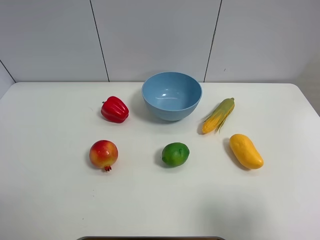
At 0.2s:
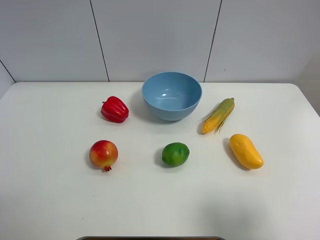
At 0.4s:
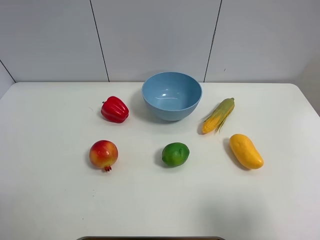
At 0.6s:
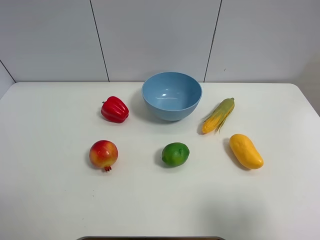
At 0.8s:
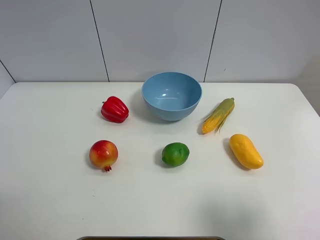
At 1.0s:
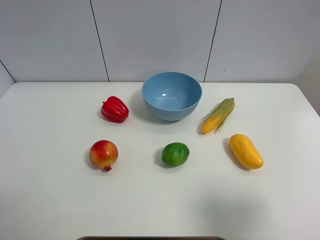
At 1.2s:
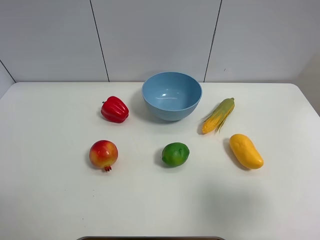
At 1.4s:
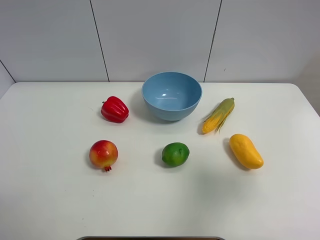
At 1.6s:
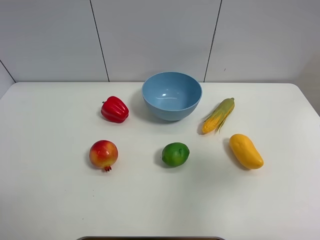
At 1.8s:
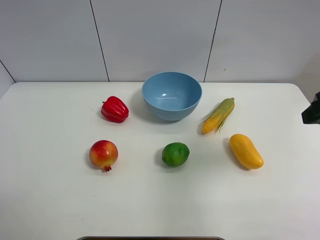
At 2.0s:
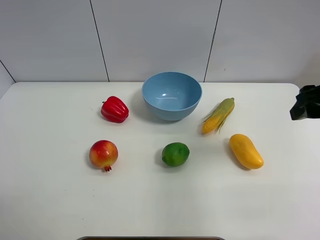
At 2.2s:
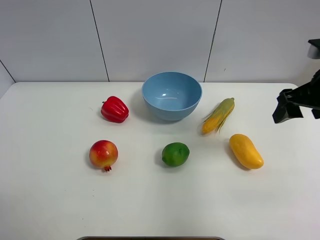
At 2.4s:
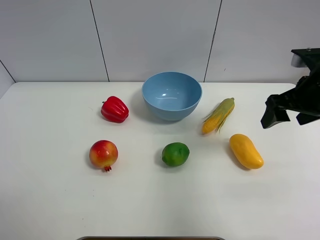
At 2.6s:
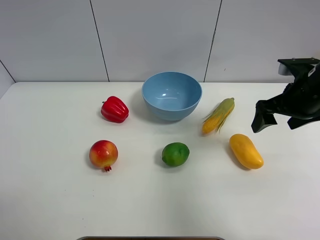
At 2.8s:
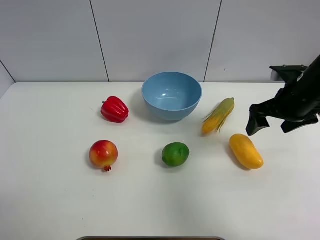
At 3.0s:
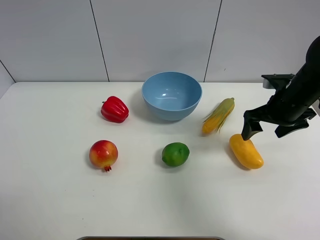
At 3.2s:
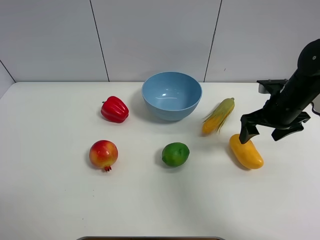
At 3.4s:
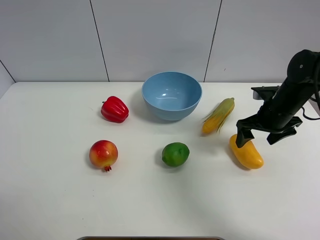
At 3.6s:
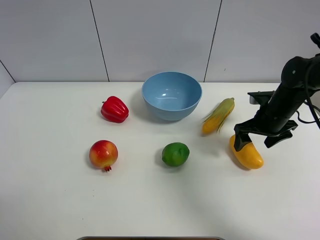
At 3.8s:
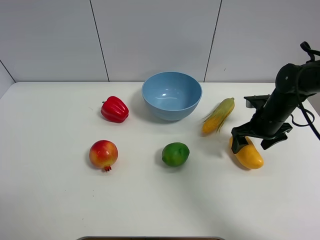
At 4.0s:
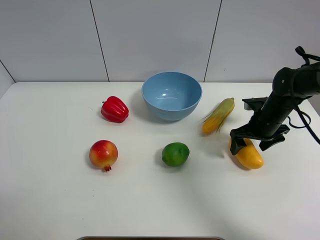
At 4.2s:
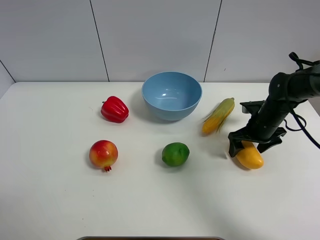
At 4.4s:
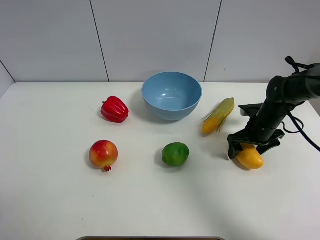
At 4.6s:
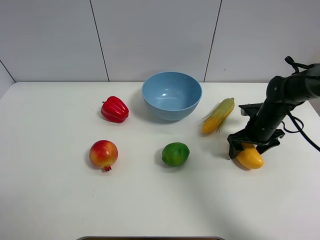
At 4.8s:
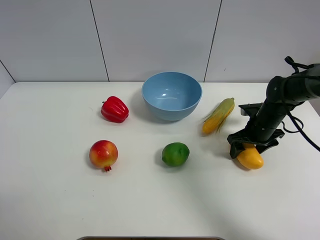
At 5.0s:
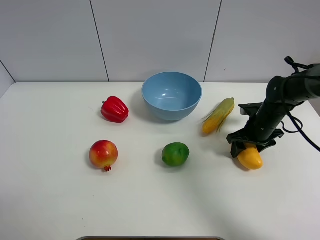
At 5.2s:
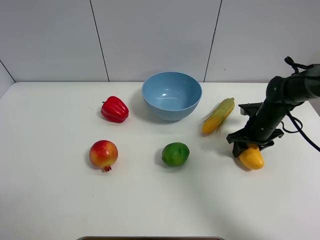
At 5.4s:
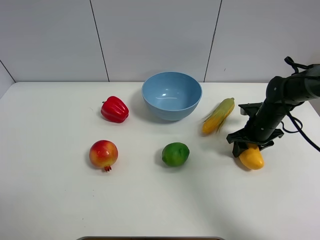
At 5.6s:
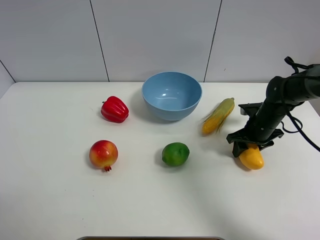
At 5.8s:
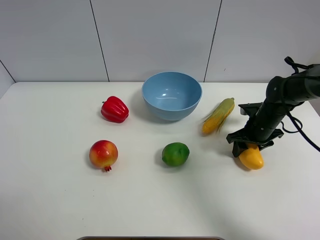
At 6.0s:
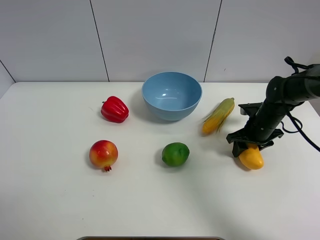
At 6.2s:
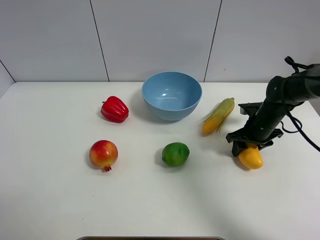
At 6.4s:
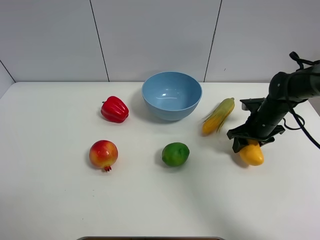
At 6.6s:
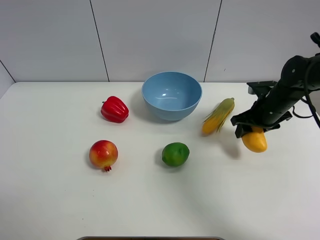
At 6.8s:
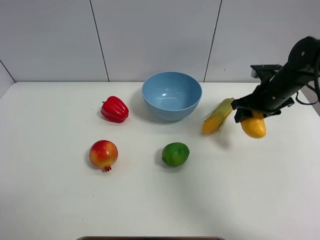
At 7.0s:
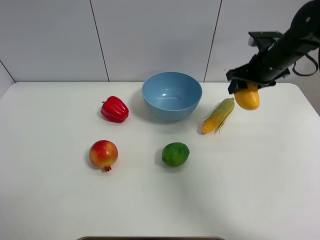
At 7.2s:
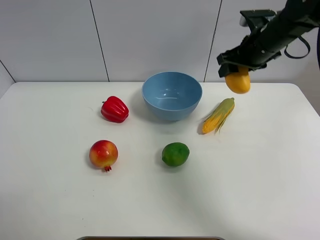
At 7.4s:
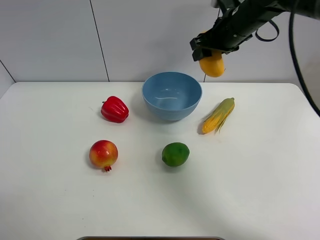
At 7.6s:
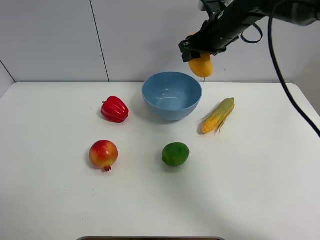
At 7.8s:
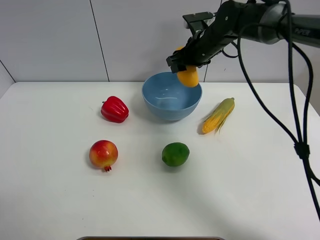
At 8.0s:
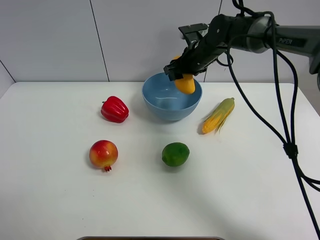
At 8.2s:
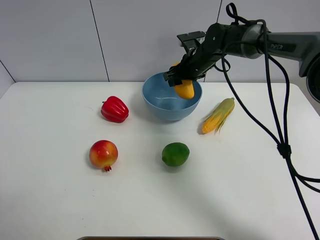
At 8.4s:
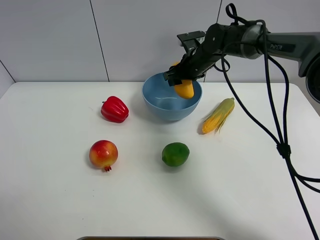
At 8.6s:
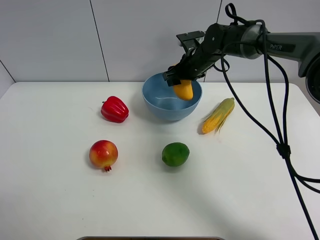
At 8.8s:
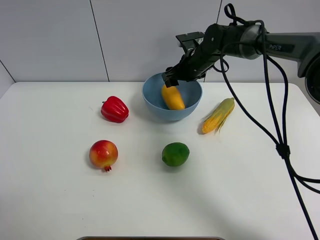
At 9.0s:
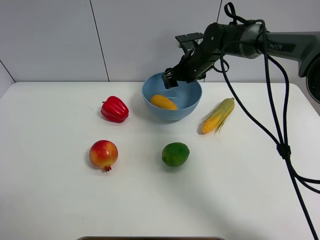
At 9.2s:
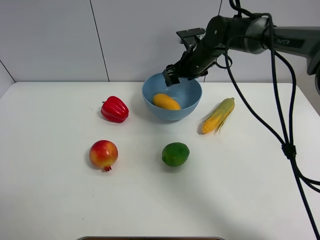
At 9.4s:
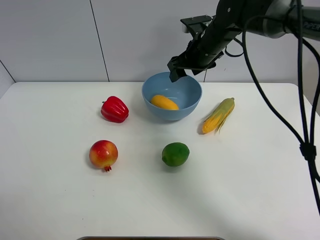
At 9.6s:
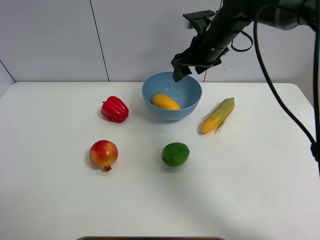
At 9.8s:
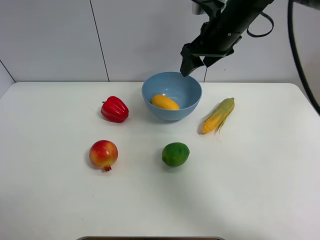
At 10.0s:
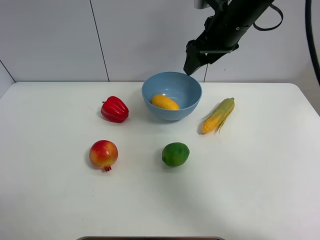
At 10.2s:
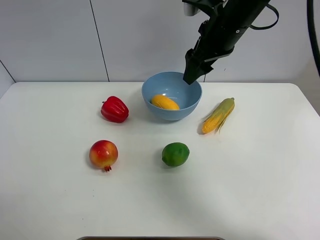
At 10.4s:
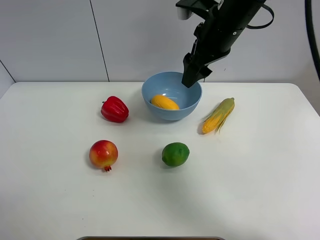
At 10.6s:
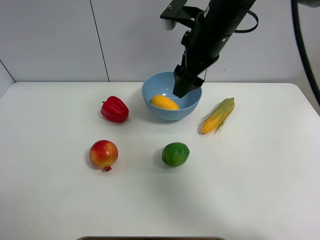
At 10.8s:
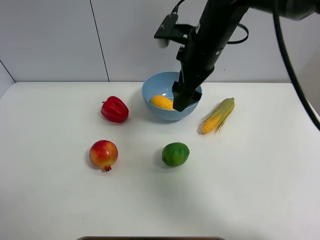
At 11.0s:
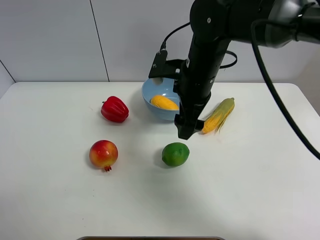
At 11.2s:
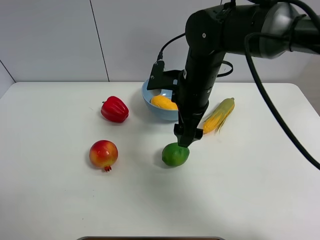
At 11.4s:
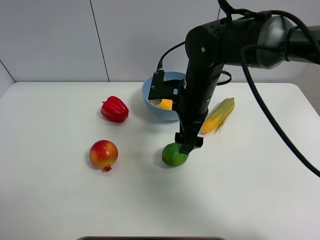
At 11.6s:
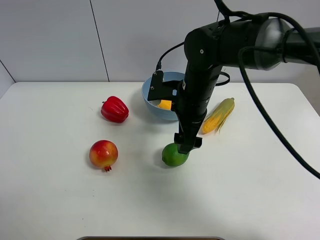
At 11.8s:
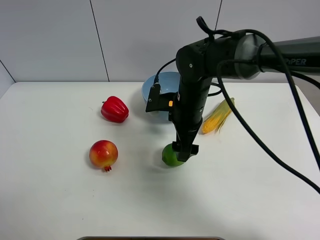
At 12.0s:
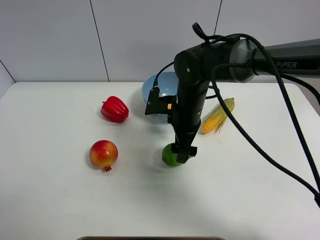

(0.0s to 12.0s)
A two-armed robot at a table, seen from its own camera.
Task of the whole recording: Put the three fruits on the table into a bowl.
Step, 0.0s - 5.2s: Grasp the mango with right gripper.
Step, 5.4s - 8.8s: Place the mango in the blue bowl with right gripper.
0.0s - 1.6s: The right gripper shifts approximately 15 cm forward.
1.6s - 3.0s: The right gripper heads forward and downward, covering some 20 cm.
3.0s - 4.4s: The right gripper shifts roughly 10 cm downward.
4.4s - 6.0s: The right gripper closes up.
6.0s - 7.6s: The right gripper goes roughly 25 cm upward, to the left and forward.
7.6s - 9.0s: The right gripper is displaced downward by approximately 10 cm, and opens.
9.0s - 10.4s: The right gripper moves upward and backward, roughly 20 cm.
10.4s - 12.0s: The right gripper goes about 15 cm downward, and opens up.

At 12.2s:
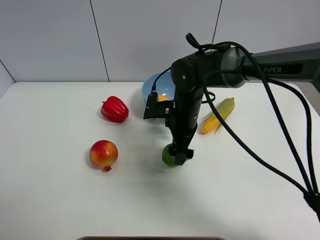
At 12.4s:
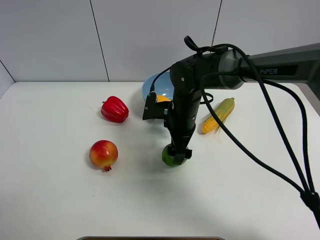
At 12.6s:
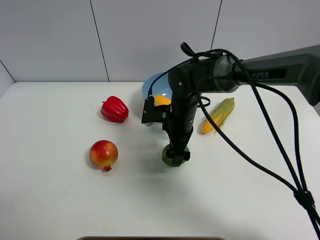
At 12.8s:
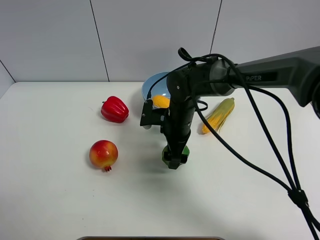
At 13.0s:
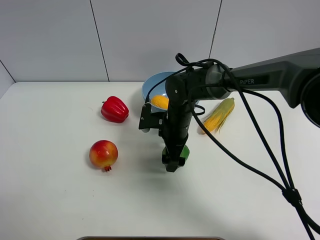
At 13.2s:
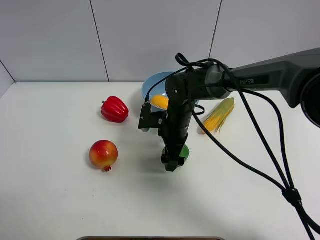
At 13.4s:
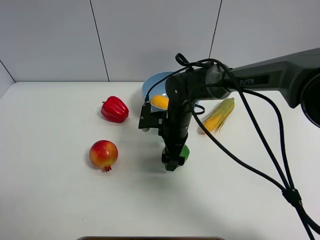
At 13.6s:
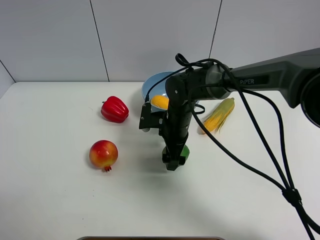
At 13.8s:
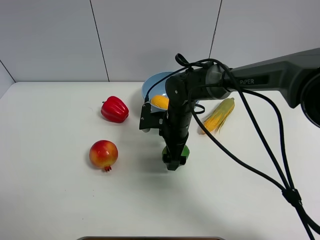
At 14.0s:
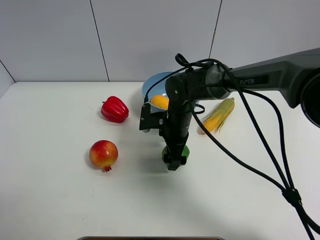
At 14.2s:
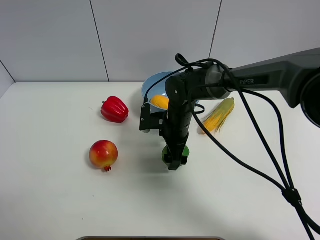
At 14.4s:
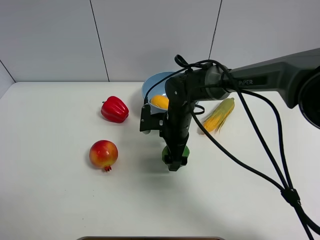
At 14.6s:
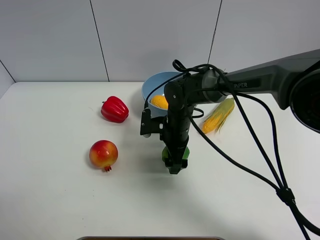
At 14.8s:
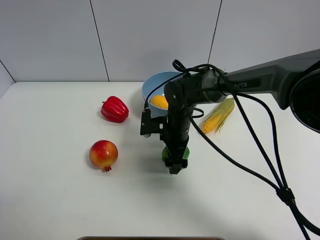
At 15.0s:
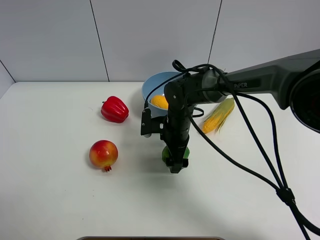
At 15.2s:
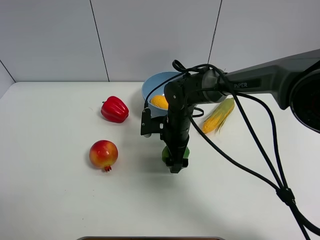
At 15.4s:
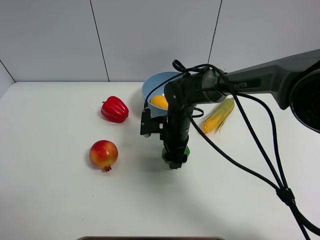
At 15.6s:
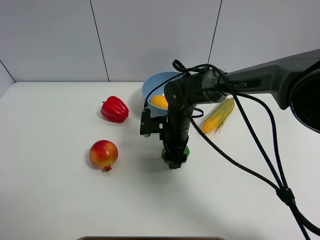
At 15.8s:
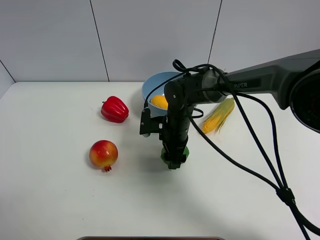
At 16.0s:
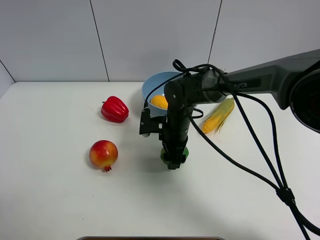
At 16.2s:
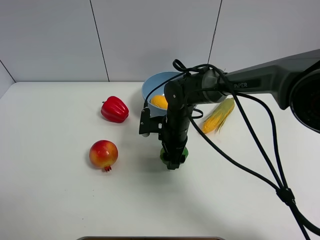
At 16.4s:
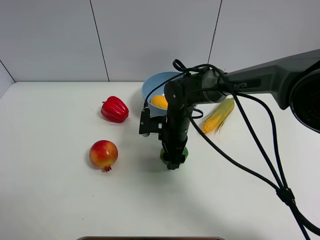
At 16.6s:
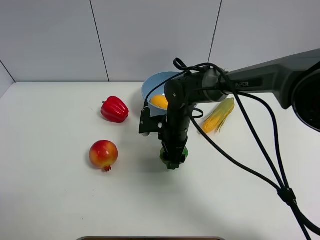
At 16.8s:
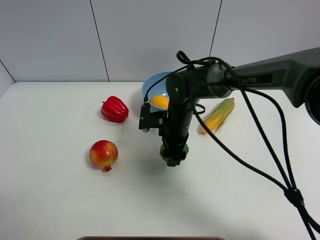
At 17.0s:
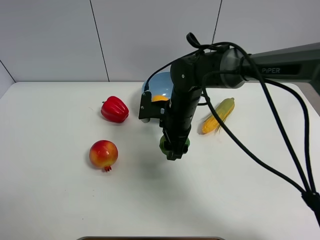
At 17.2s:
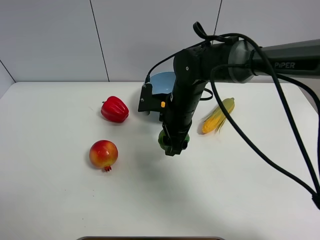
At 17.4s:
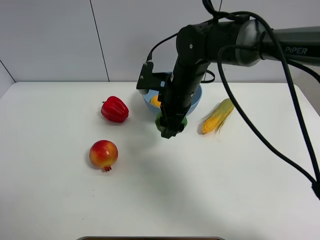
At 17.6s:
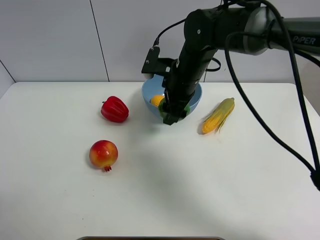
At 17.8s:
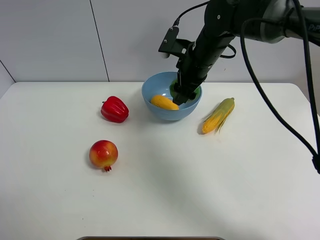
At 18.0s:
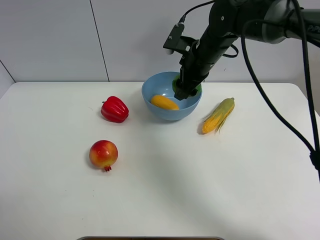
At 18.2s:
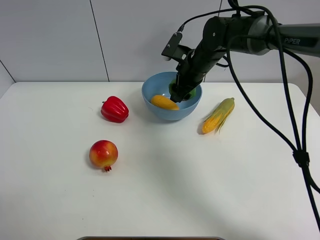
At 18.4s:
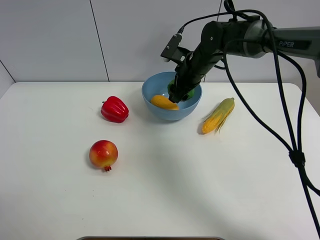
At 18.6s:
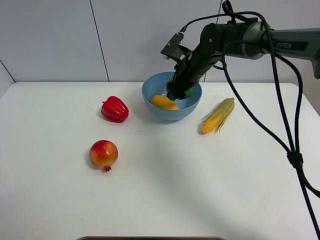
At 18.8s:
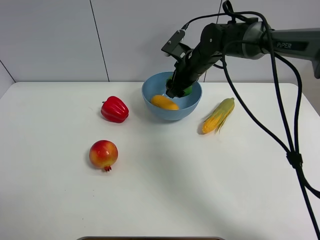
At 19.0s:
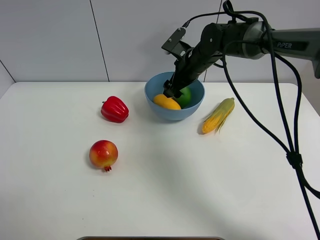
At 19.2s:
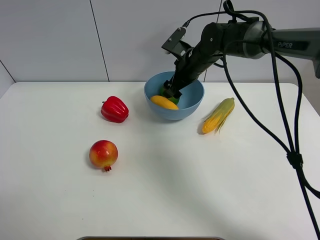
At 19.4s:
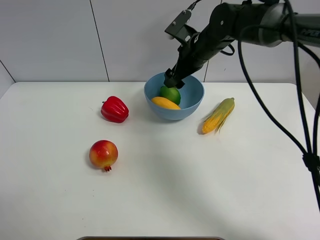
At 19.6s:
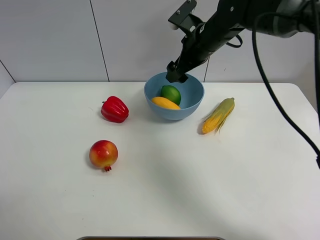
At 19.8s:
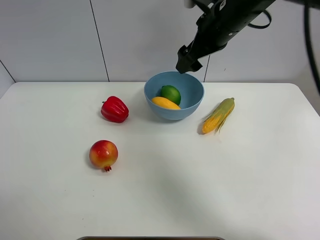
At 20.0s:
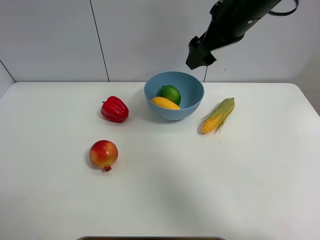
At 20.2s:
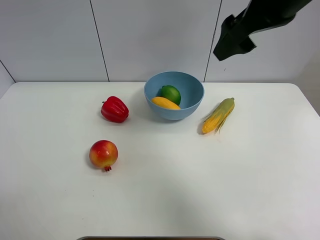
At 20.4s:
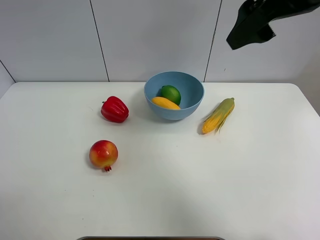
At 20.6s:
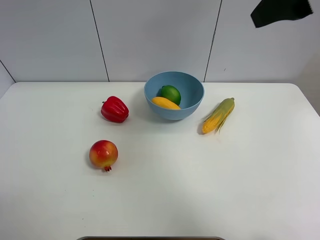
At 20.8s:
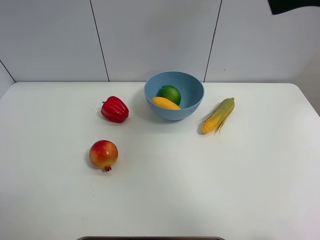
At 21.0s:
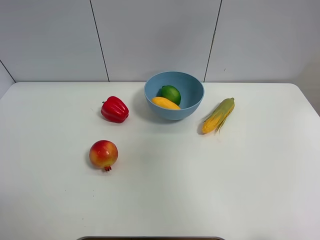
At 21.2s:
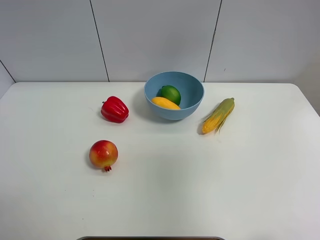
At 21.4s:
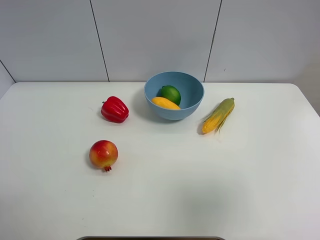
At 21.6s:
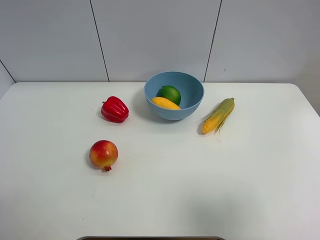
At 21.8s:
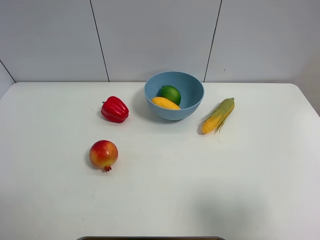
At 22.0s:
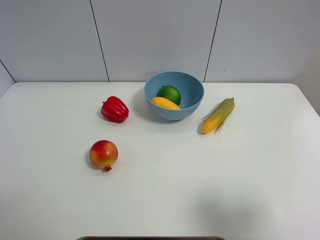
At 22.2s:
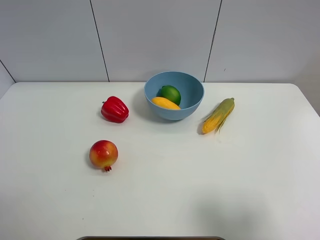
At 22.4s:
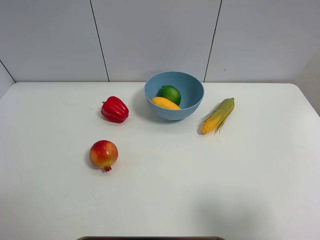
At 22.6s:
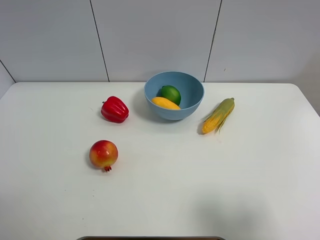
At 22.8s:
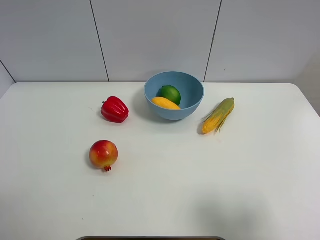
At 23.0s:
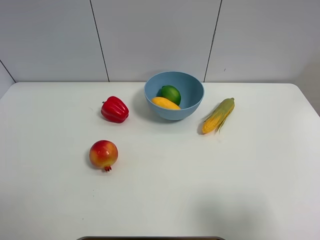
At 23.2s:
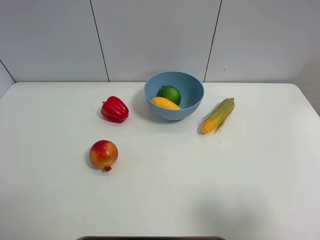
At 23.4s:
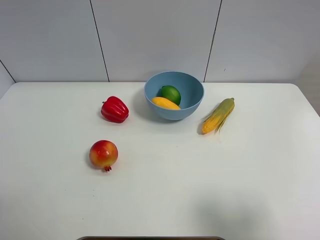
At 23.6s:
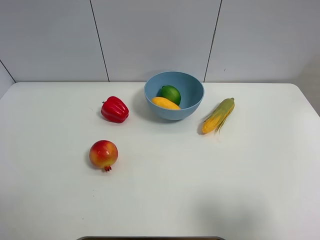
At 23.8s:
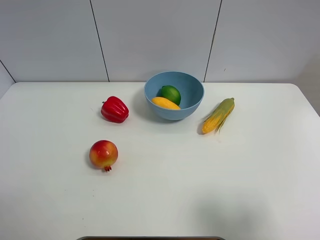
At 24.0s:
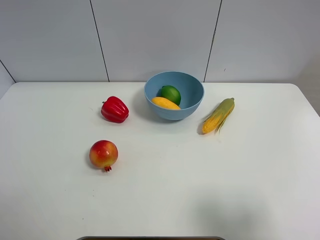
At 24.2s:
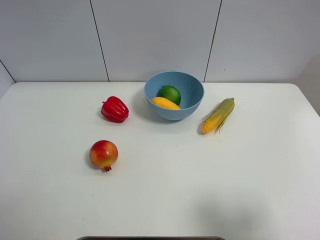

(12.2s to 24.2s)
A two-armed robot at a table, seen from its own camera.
Task of the whole recording: Put the three fruits on the table into a bowl.
Step, 12.2s - 15.6s: Grasp the green lemon with right gripper.
Step, 15.8s - 19.4s: Place the green lemon in the blue bowl with right gripper.
12.2s - 13.8s: The grippers move only a little.
13.8s - 15.2s: Both grippers stay put.
15.2s - 16.6s: The right gripper closes.
16.6s - 18.2s: The right gripper travels forward, upward and to the right by approximately 15 cm.
18.2s - 19.8s: The right gripper shifts about 15 cm upward and backward, and opens its fingers.
19.8s - 21.2s: The right gripper travels backward and to the right by approximately 35 cm.
21.2s - 22.6s: The right gripper moves downward and backward, some 15 cm.
